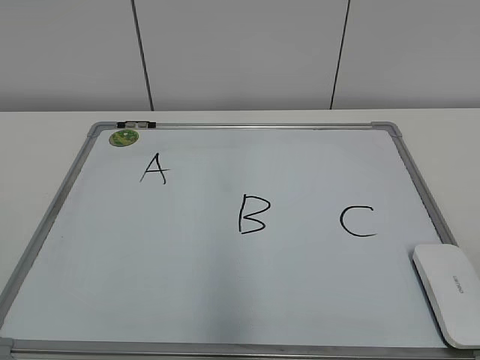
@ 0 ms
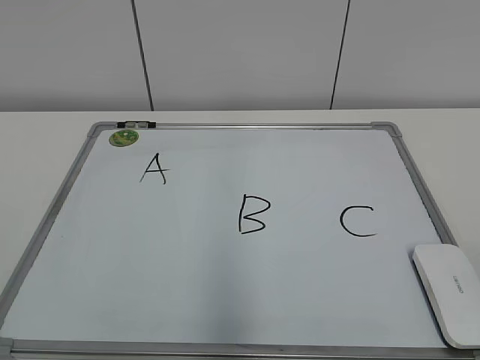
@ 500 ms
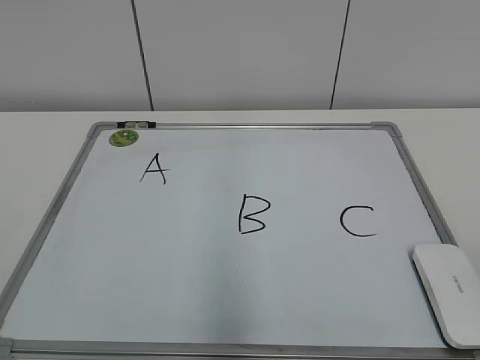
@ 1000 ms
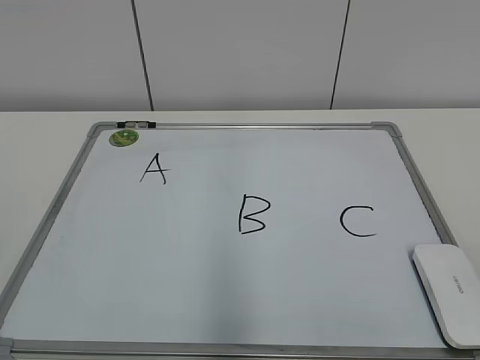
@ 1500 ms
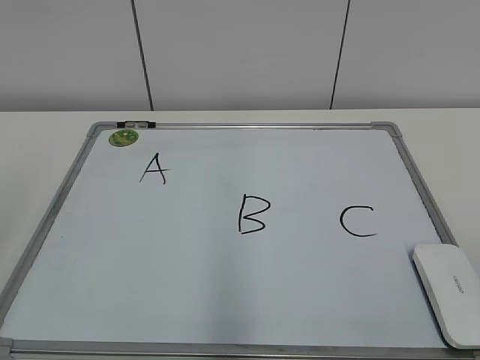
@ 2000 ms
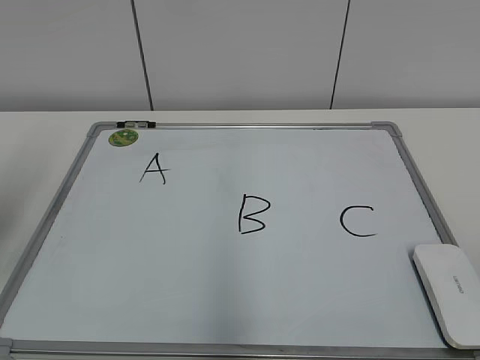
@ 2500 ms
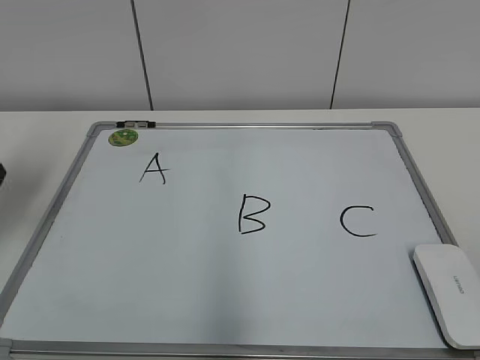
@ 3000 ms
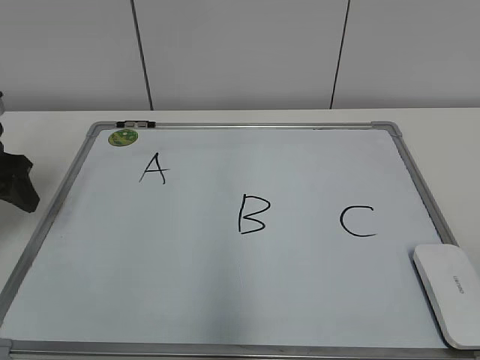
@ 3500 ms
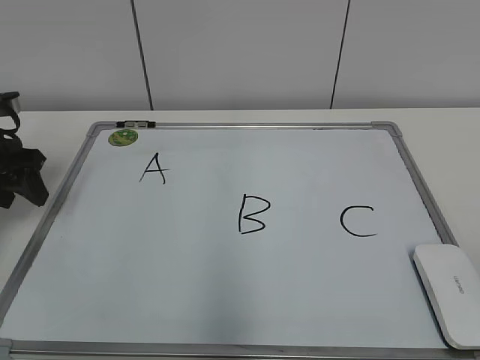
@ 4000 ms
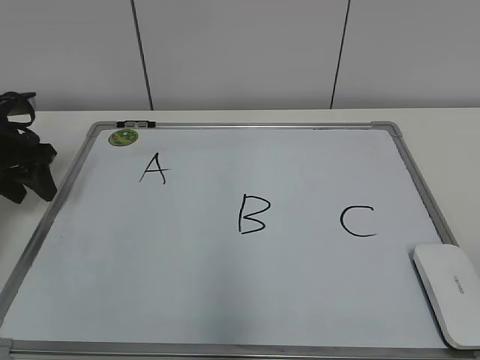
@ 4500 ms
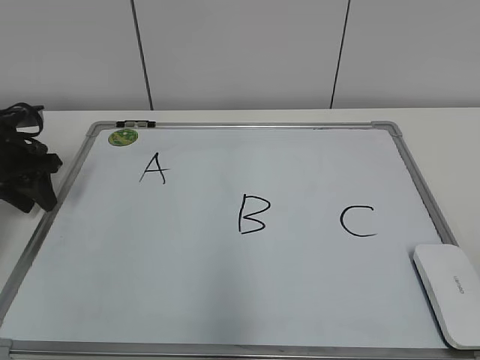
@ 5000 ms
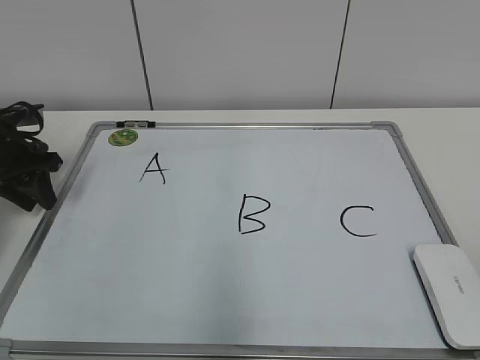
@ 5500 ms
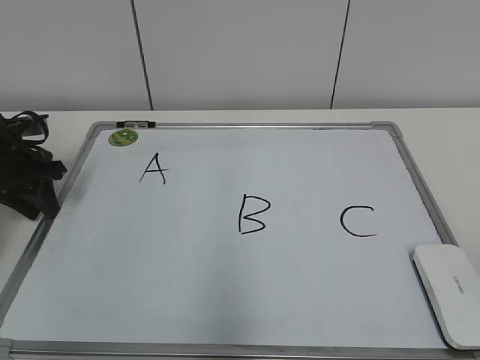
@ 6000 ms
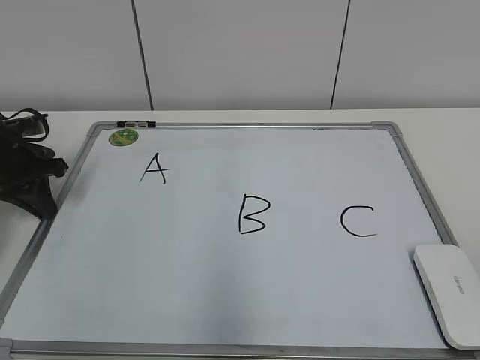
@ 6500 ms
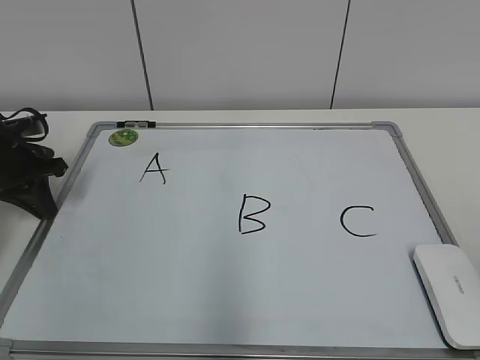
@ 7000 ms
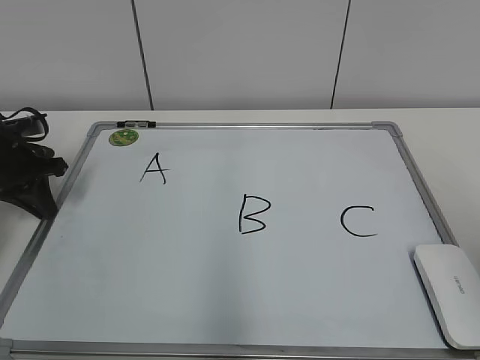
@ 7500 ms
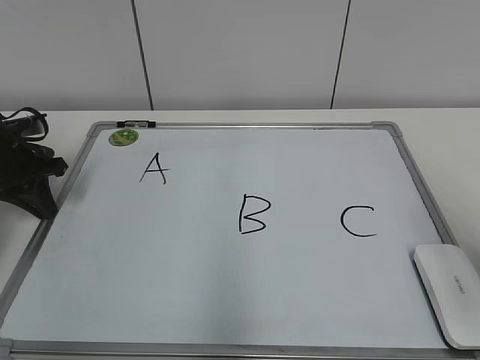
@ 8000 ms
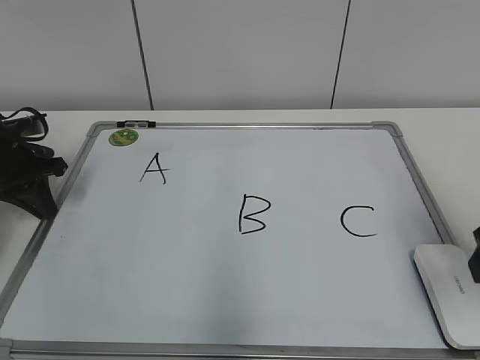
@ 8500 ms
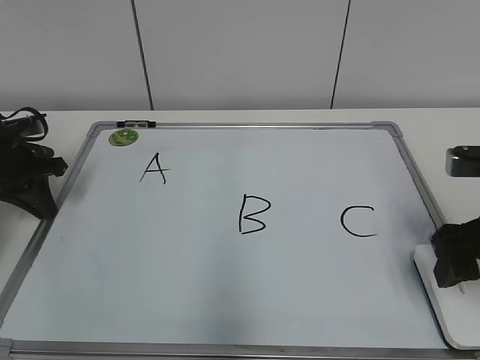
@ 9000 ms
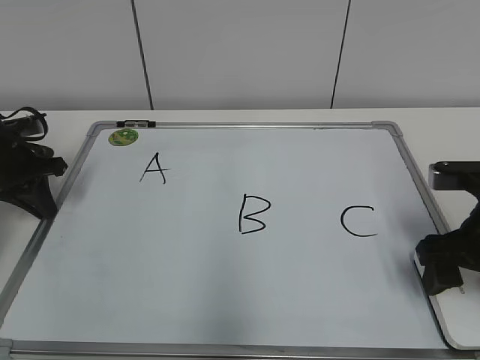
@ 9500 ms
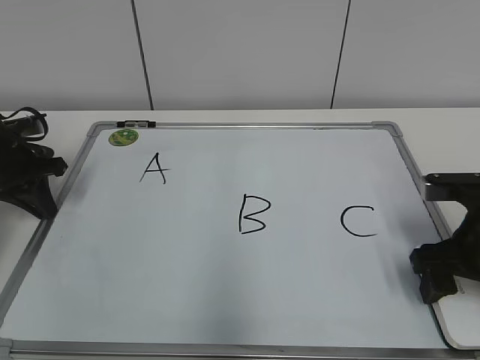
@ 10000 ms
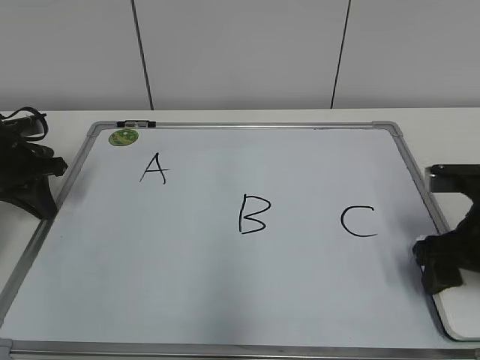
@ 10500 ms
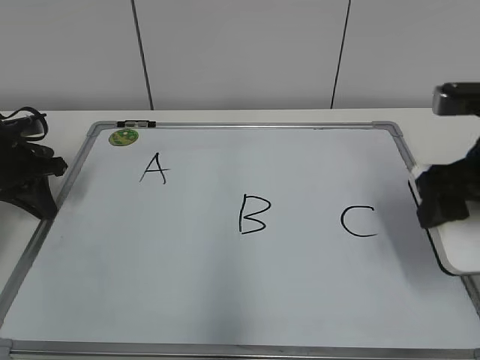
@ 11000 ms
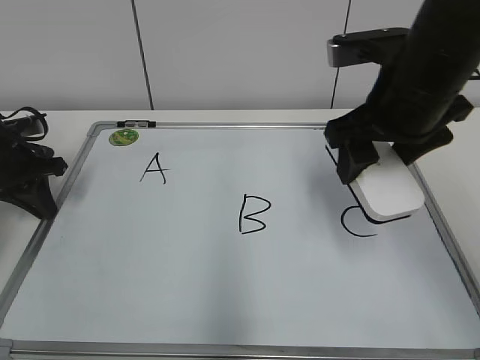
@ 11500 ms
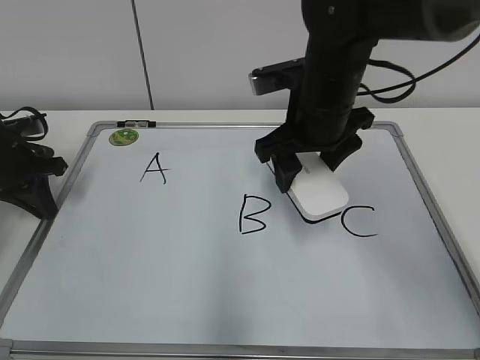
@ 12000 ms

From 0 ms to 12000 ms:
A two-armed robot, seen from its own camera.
Task of the whole recording: pick up the eraser on the blackboard and erase the letter "B".
Step, from 0 ms to 6000 ms: Hold the drawing board steady with your left hand.
Step, from 6500 ms to 10000 ms: Grab the eraser with your right hand.
From 2000 ms to 4000 ms: The left gripper is displaced forward and downward by about 30 cm.
From 4000 ms to 6000 ms: The left gripper moves some 5 cm.
From 6000 ms to 8000 ms: The left gripper closes up. The right gripper travels forward by roughly 15 cm.
From 8000 ms to 10000 ms: The right gripper moves downward and forward, some 20 cm.
From 10000 ms to 12000 ms: The right gripper is displaced to the left, forward and upward by about 20 cm.

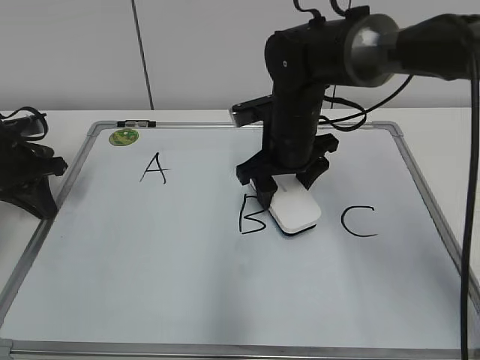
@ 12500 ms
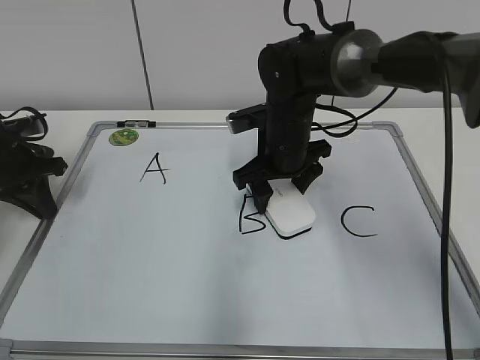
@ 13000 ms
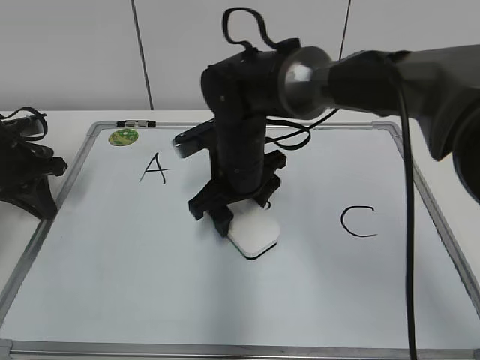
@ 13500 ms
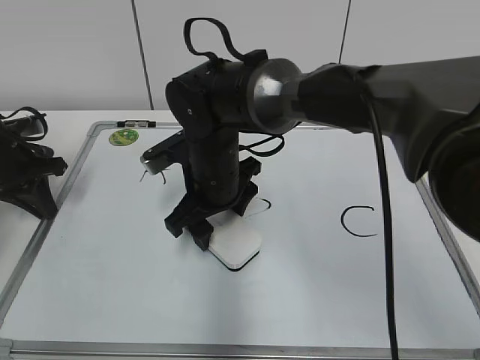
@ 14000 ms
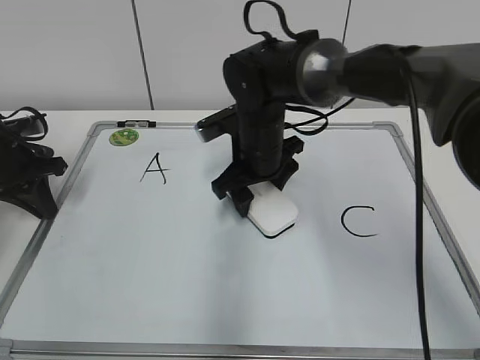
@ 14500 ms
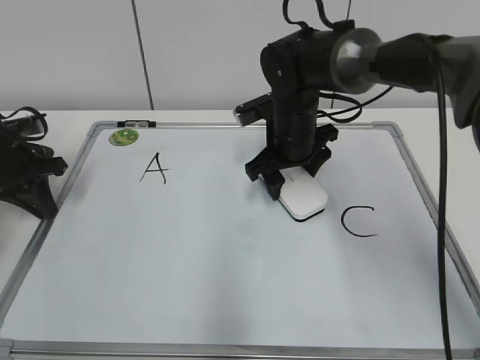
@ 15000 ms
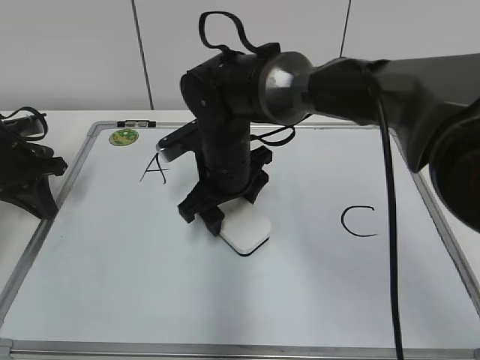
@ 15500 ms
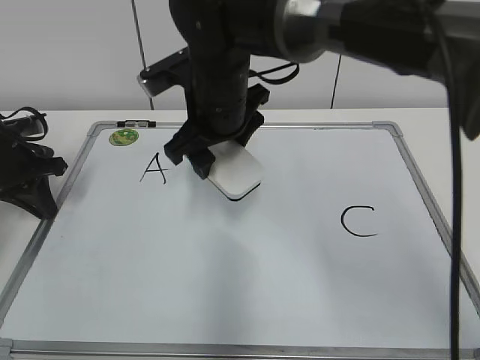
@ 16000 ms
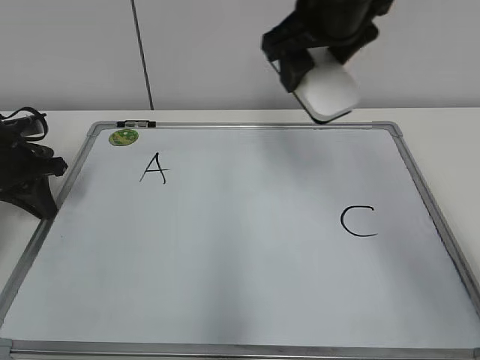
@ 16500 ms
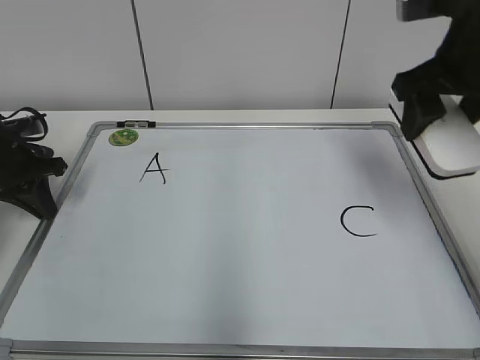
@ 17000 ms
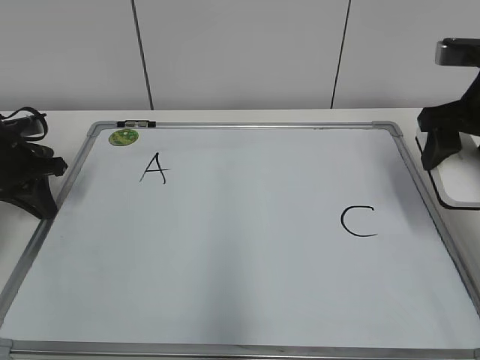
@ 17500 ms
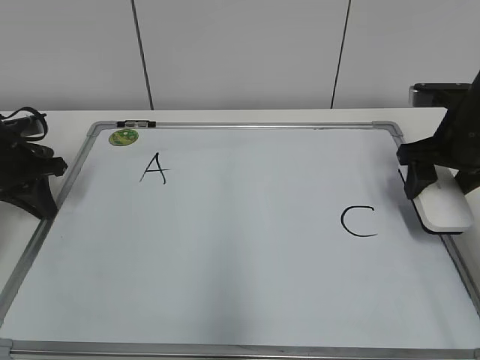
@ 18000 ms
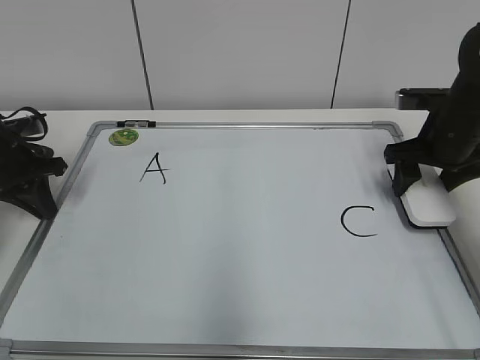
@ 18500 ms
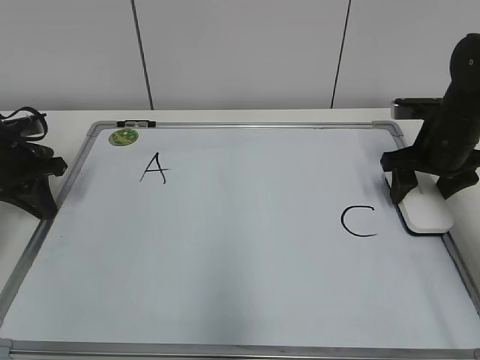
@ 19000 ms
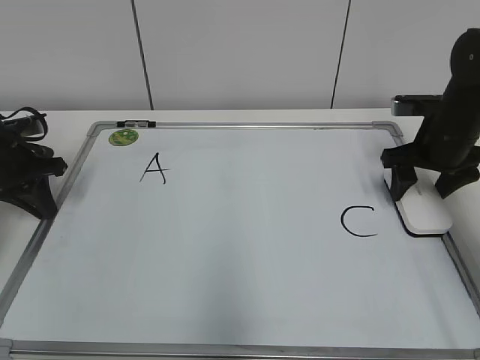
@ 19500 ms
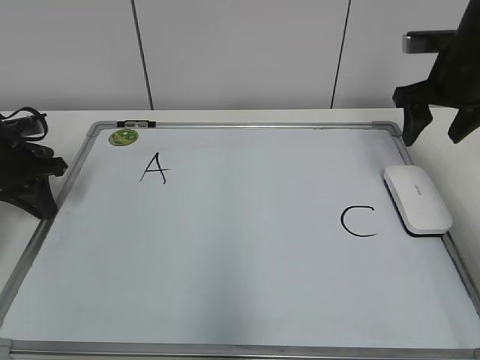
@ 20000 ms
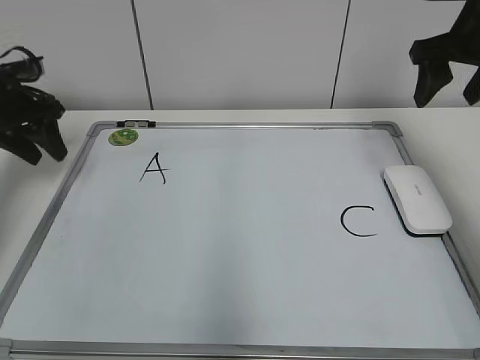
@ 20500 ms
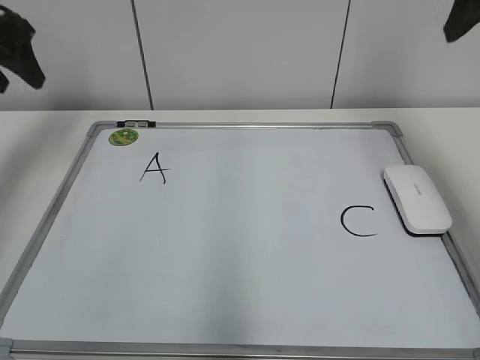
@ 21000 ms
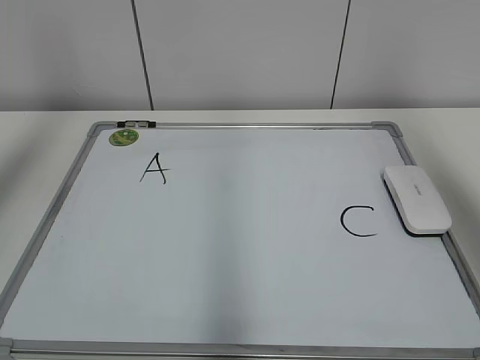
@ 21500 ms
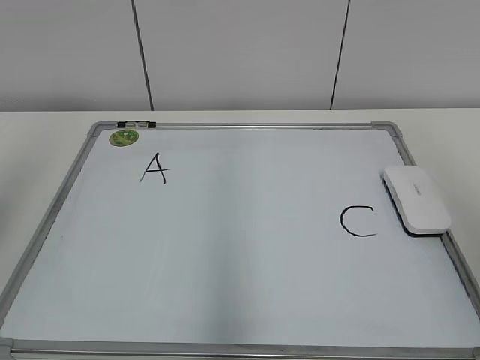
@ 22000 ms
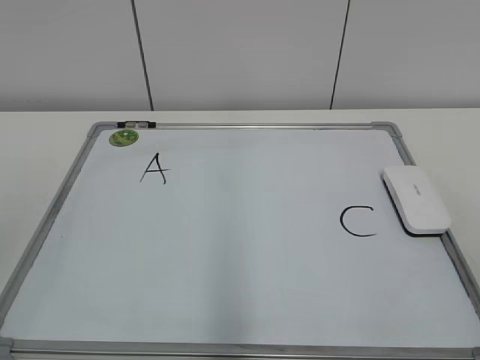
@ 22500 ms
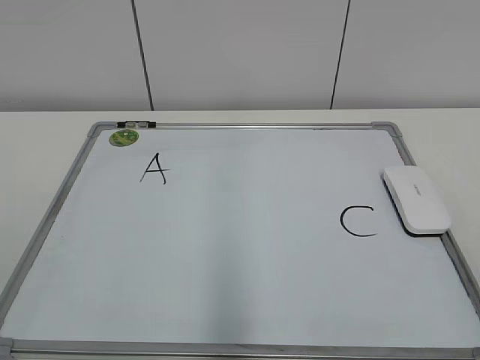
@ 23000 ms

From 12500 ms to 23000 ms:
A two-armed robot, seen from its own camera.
Task of the whole recording: pick up the eraser on the blackboard and erase the letter "B".
Step, from 12500 ms to 15500 ms: Erase the letter B with your right hand.
Step, from 16000 ms to 19500 ms: Put down the eraser with your right hand.
From 14500 ms to 16500 ms: The right gripper travels upward by approximately 20 cm.
From 16500 ms to 19000 ms: The right gripper travels downward and to the right by about 25 cm.
From 19000 ms to 21000 ms: Both grippers move upward, some 20 cm. The left gripper opens.
From 21000 ms to 23000 ms: Both grippers travel together backward, about 35 cm.

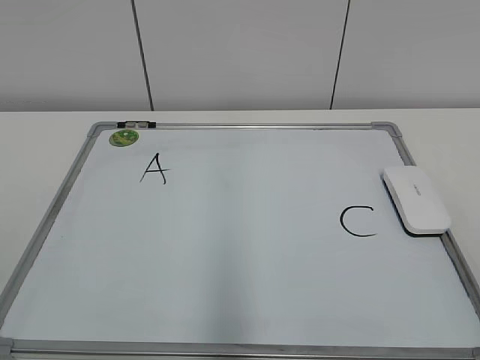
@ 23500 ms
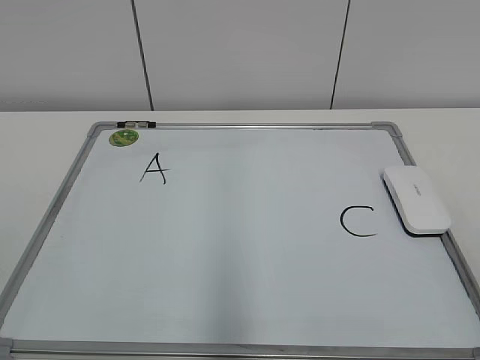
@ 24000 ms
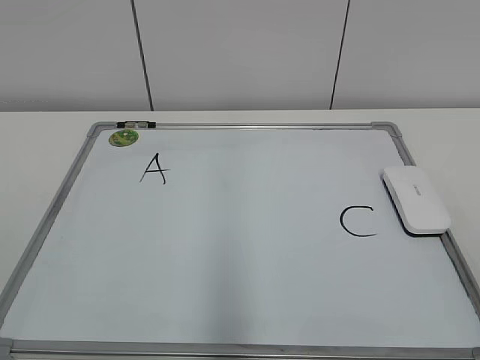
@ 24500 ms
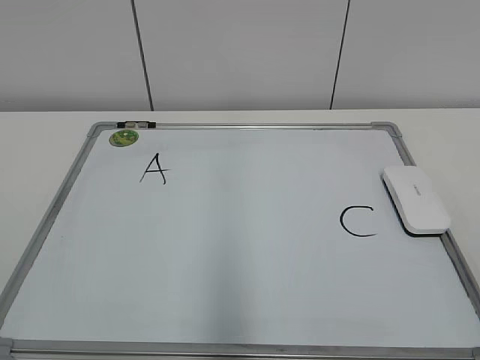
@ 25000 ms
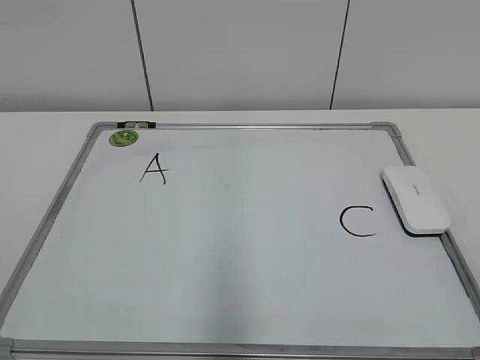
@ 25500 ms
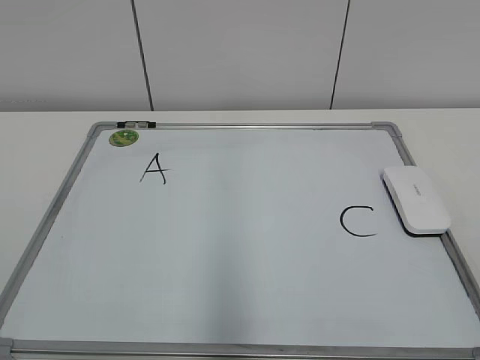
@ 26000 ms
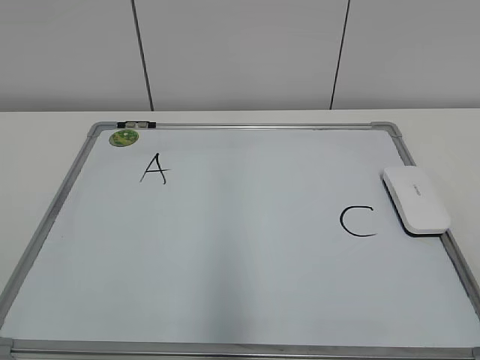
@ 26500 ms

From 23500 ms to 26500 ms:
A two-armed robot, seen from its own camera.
Task of the whole recording: pick up the eraser on the blackboard and erase the letter "B".
From 25000 ms to 26500 ms: Both grippers stay about where they are.
